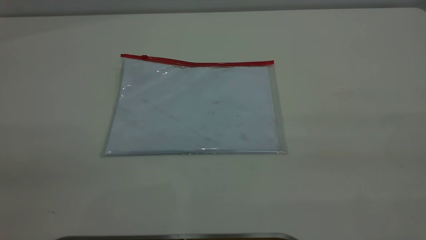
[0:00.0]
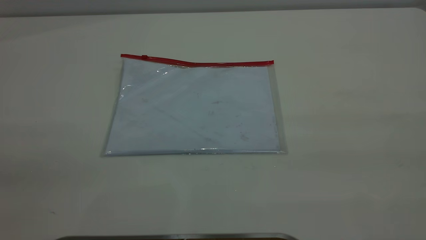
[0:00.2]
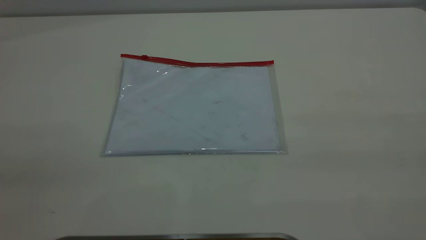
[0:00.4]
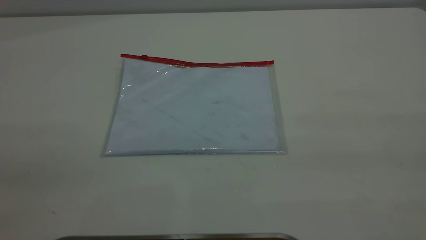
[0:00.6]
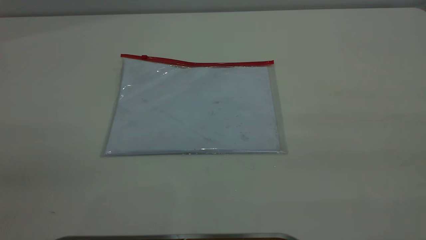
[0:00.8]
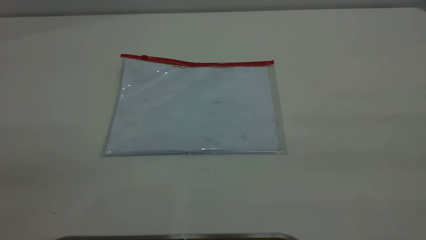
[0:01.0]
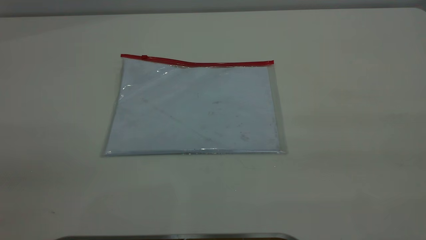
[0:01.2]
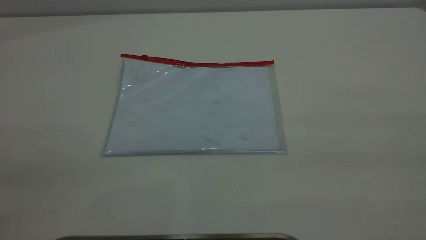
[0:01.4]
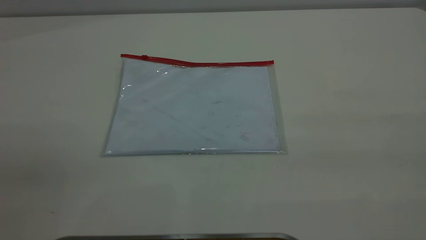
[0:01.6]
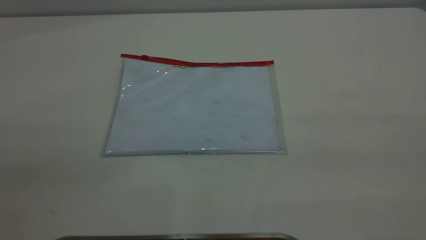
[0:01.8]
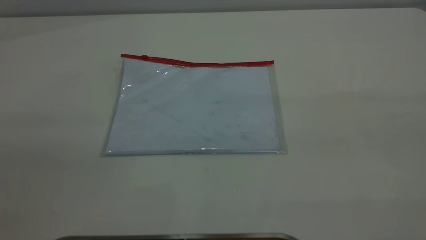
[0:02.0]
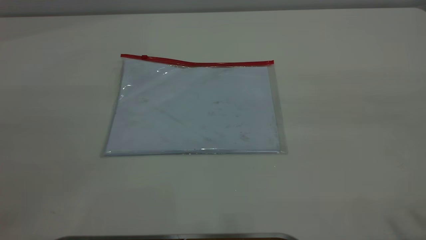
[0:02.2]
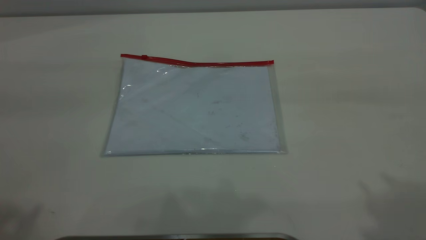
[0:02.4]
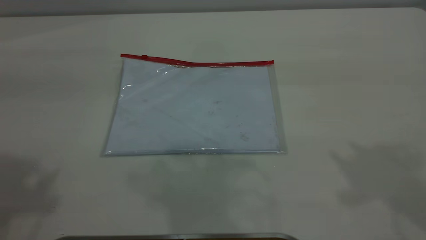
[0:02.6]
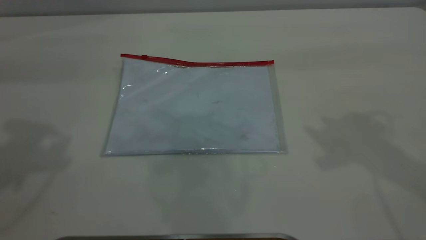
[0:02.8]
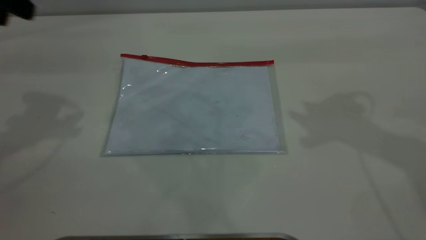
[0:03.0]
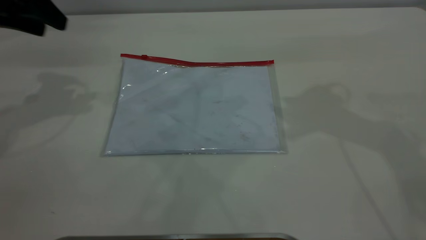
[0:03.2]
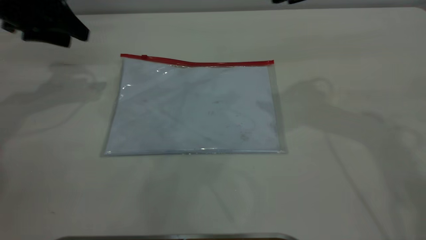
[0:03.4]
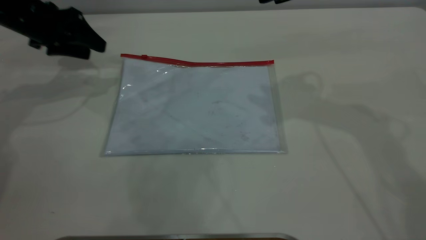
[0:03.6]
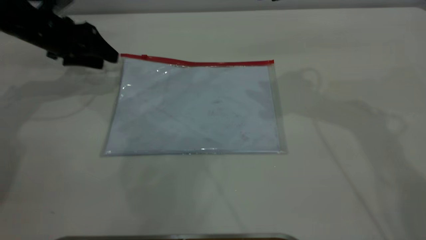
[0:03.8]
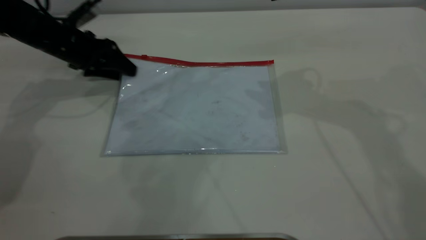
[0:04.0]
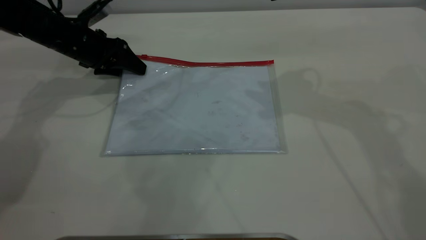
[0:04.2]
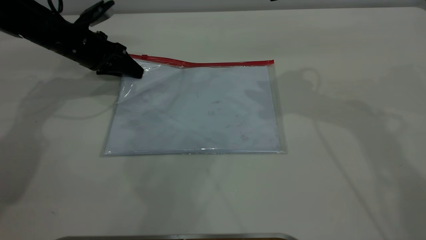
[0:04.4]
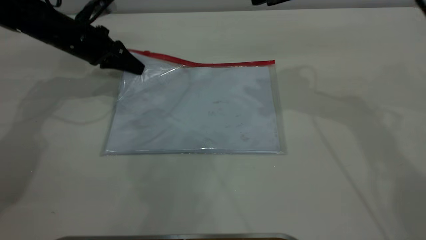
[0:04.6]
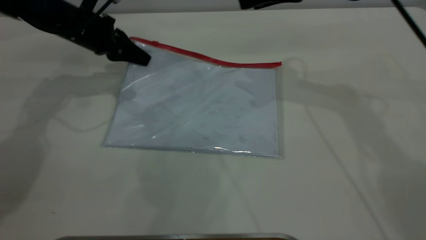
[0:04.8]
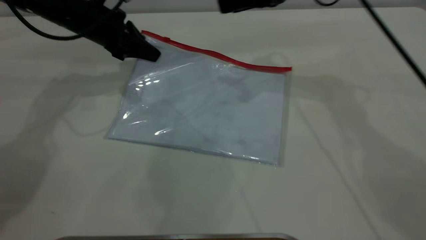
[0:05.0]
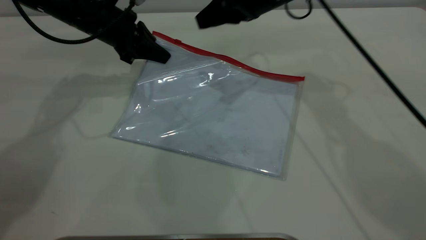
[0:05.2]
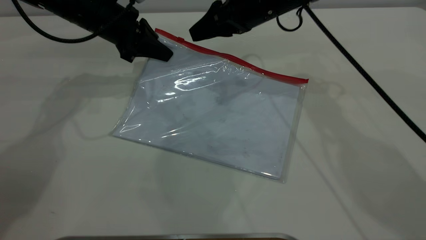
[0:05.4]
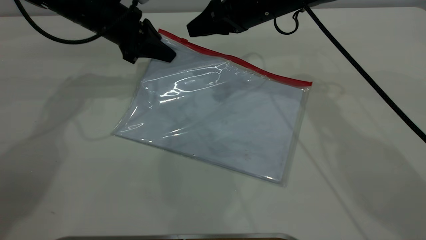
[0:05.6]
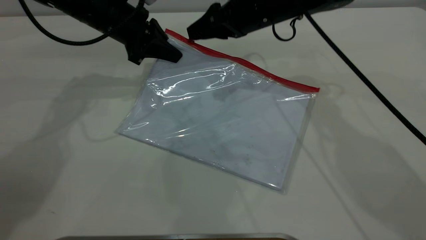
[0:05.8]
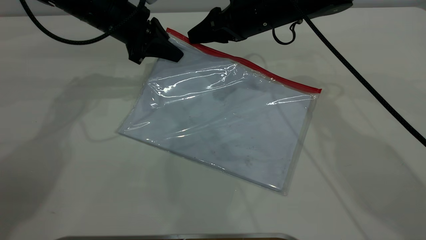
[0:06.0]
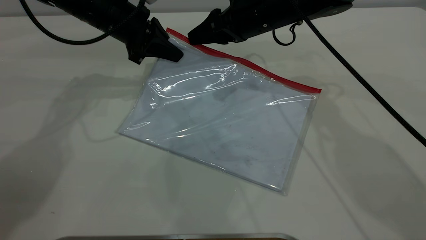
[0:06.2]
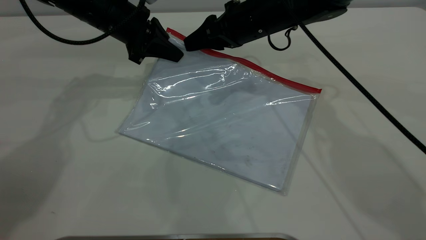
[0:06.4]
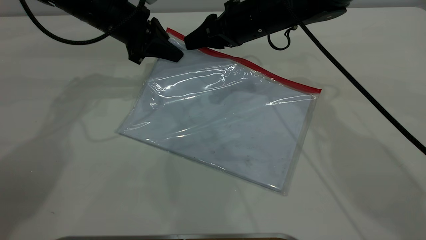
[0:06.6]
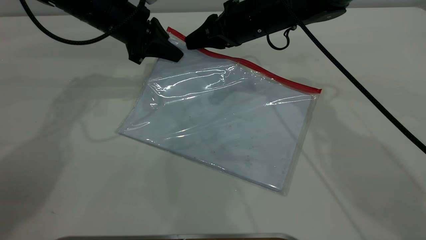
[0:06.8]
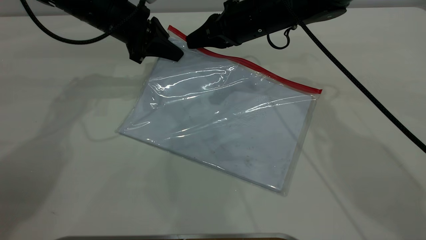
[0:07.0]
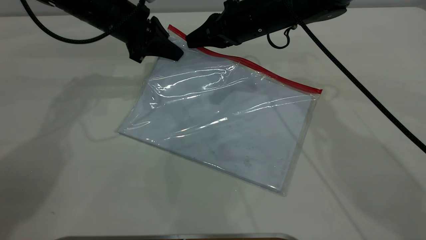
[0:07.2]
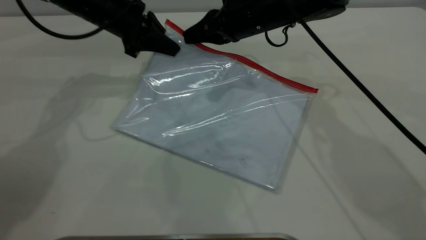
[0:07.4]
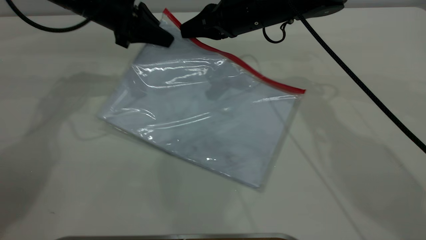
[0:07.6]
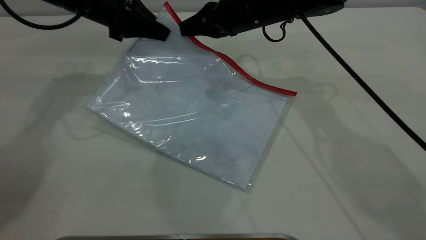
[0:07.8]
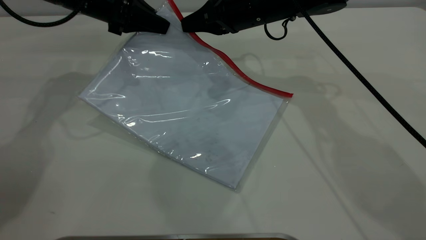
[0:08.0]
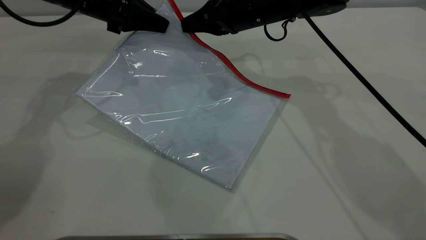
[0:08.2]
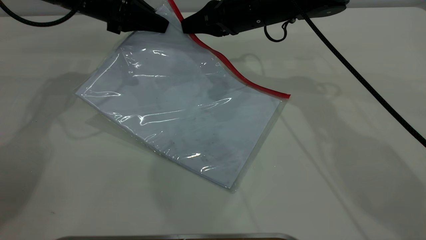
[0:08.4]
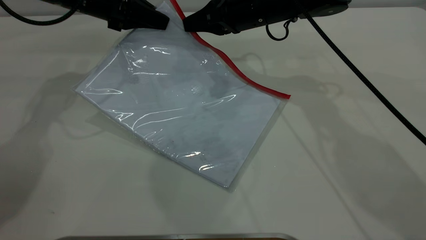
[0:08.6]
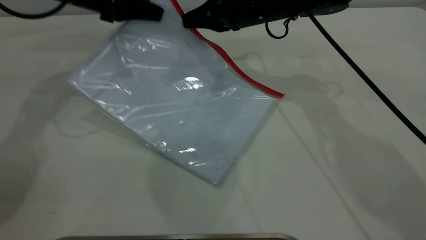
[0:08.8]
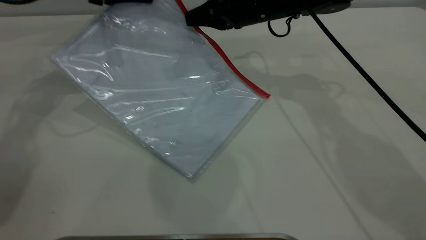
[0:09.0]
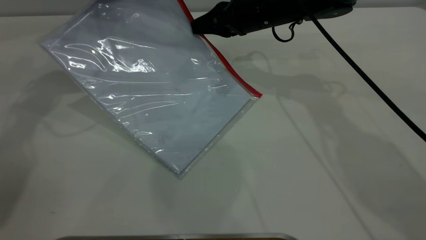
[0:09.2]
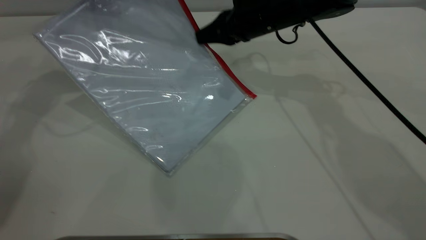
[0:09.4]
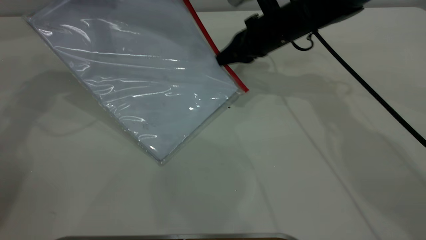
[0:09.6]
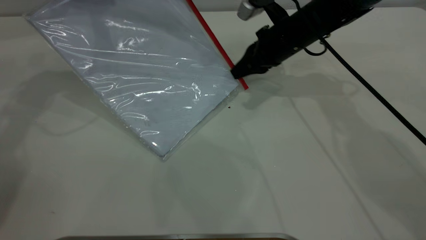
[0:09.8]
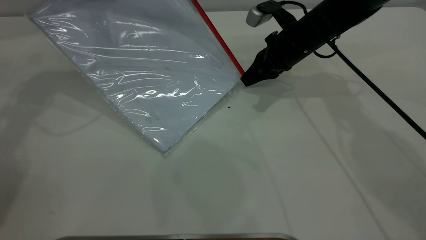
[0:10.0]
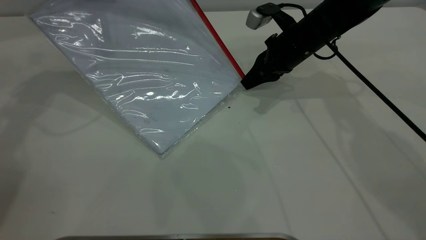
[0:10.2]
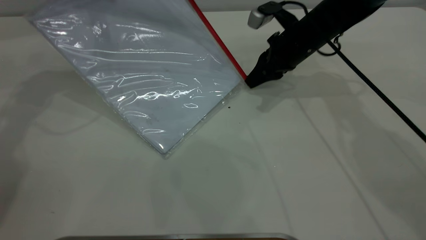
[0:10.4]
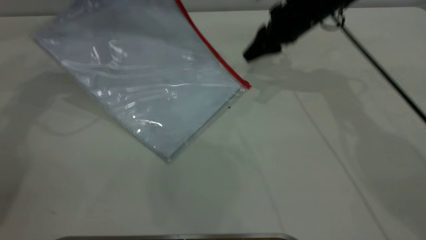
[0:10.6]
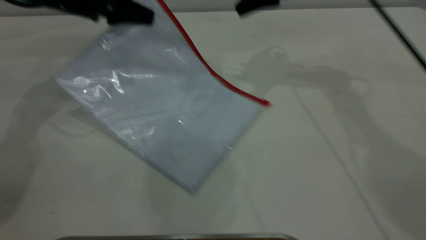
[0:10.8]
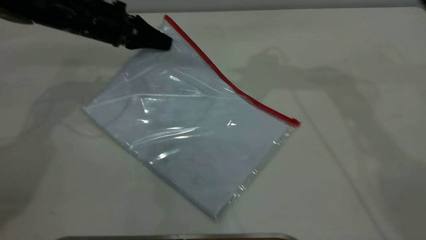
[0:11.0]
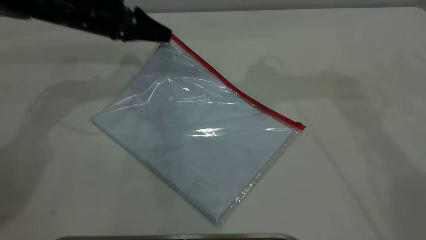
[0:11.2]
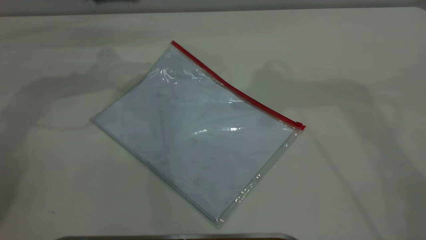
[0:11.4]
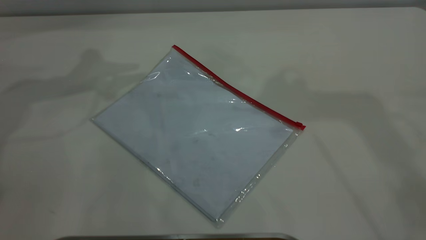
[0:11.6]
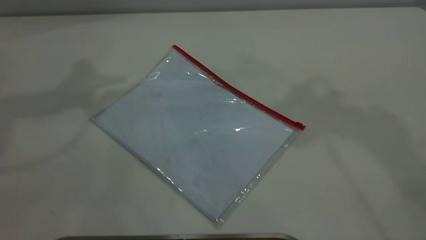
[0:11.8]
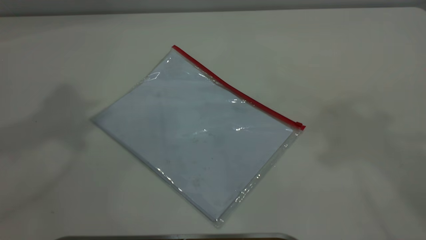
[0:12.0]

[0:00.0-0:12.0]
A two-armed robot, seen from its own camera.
Step, 0:00.0 to 0:04.8: Pick up the transparent plastic bag with the left gripper.
Step, 0:05.0 to 0:10.6: Pulling up the zipper on the transparent plastic bag with the right gripper to close it.
Step, 0:10.8 to 0:11.2: Place the transparent plastic bag.
0:01.6 to 0:03.0: The left gripper travels forward by about 35 cm.
0:03.0 to 0:04.4: The left gripper travels downward and forward by approximately 25 cm, and closes its fingers.
0:04.4 to 0:06.0: The left gripper travels to the right and upward by about 10 cm; the right gripper heads downward, to the left and forward, covering about 15 cm.
0:06.0 to 0:07.6: The right gripper closes up.
0:07.6 to 0:09.0: The left gripper goes some 5 cm upward.
0:09.0 to 0:10.4: The right gripper heads to the right, covering approximately 5 cm, and opens its fingers.
0:10.4 to 0:12.0: The left gripper is displaced upward and backward by approximately 30 cm, and opens up; the right gripper goes about 50 cm upward and backward, and opens its fingers.

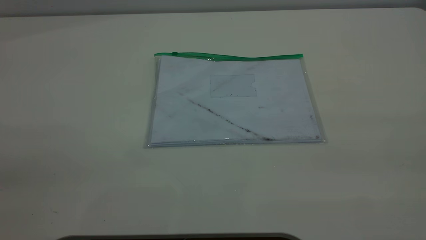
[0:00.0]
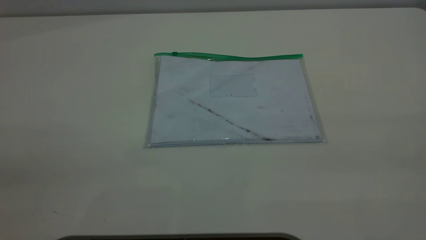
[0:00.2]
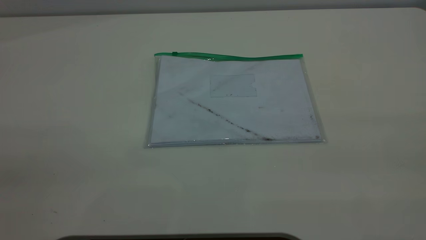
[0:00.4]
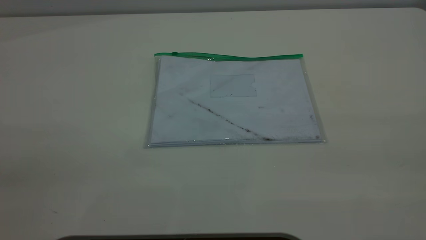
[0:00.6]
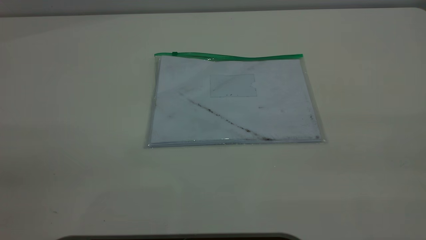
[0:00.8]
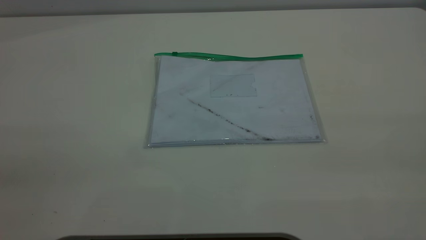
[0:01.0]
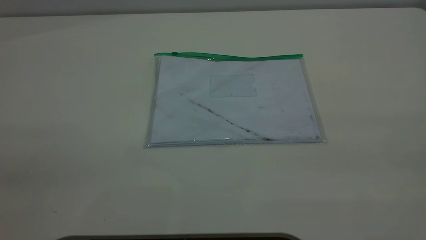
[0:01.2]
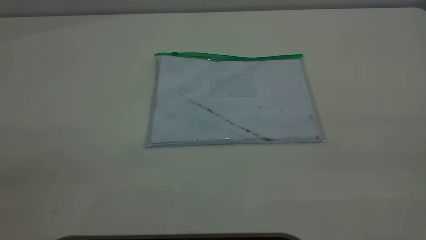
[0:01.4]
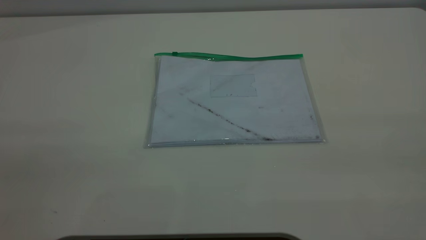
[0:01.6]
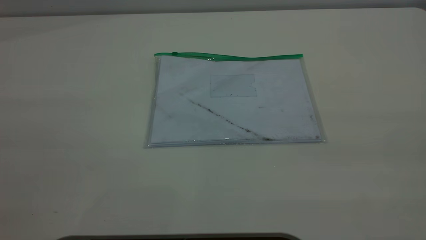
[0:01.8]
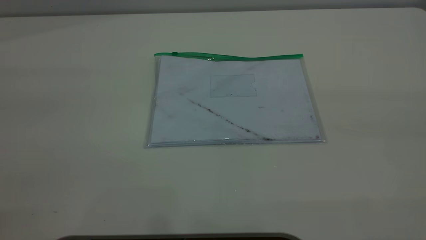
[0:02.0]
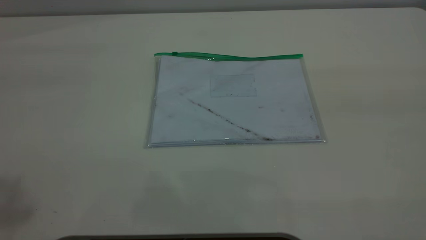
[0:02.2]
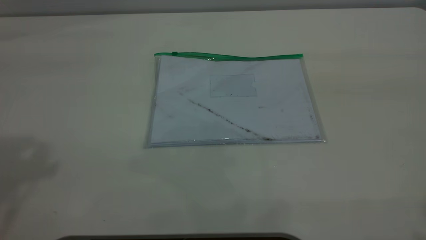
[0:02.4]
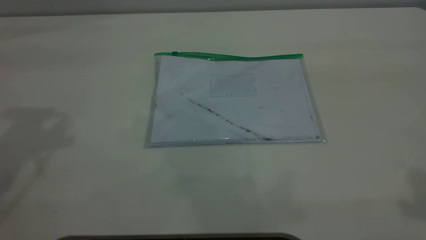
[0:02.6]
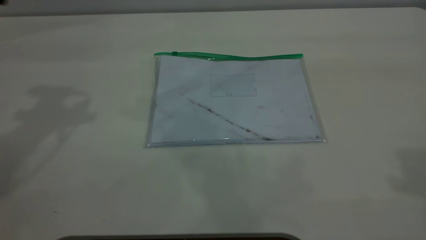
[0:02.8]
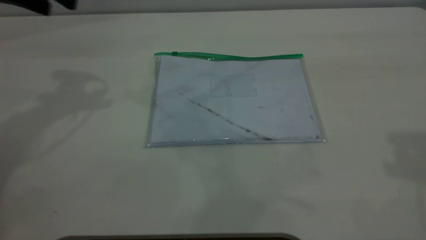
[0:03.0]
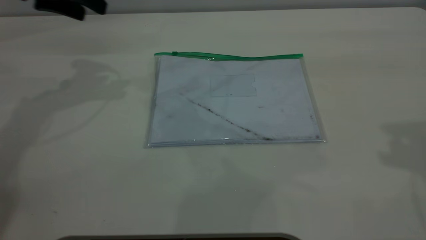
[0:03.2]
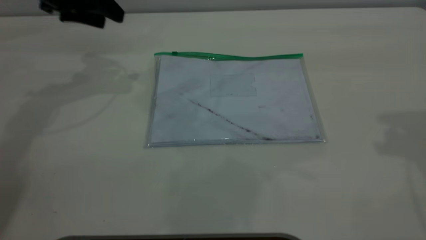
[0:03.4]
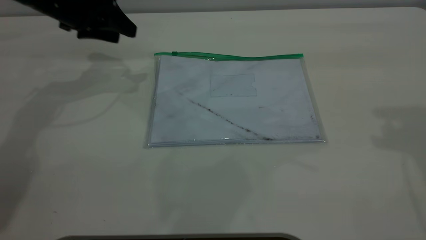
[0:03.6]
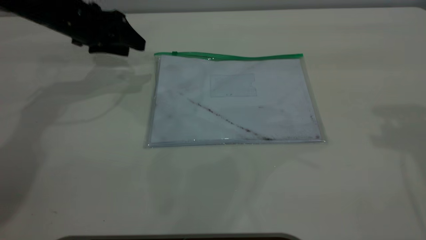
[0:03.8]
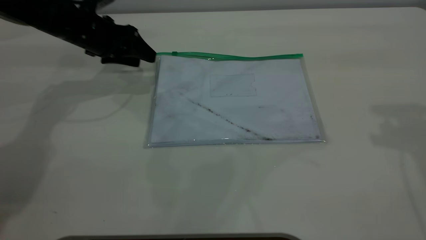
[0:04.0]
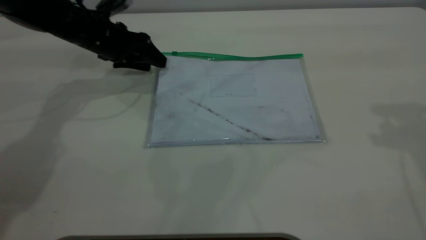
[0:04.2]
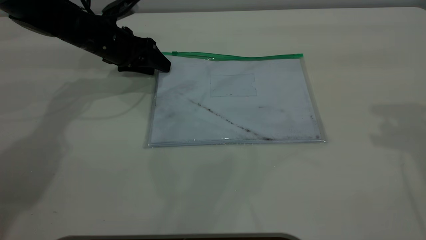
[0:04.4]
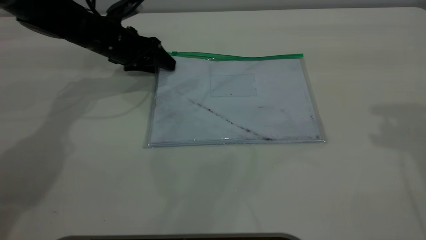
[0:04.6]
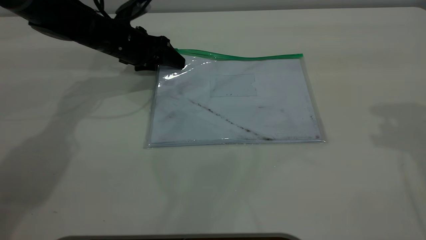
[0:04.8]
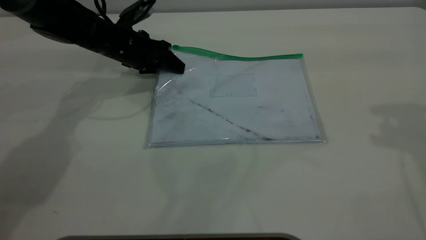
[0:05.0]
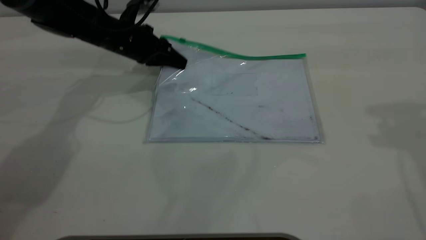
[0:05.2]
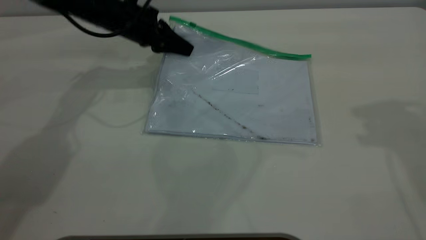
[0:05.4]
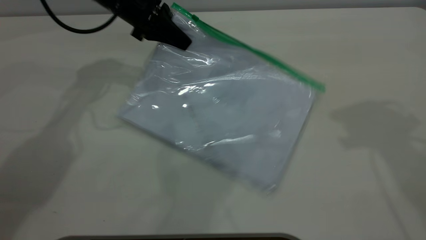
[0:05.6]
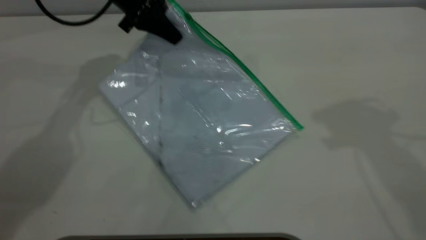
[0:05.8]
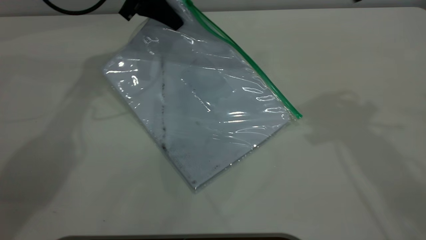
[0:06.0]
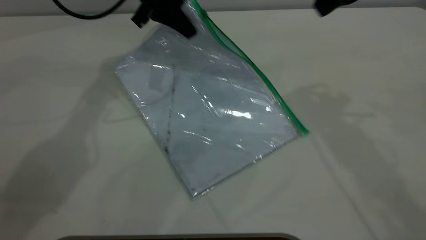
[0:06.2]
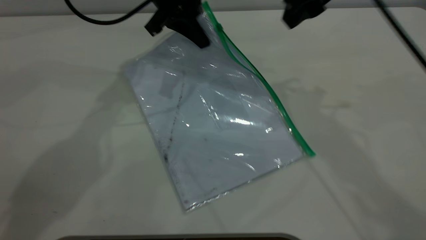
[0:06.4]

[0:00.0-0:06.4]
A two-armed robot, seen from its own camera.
Step, 0:00.0 to 0:05.2: Pick up the transparent plastic bag with the left gripper.
0:00.0 to 0:01.6: The two grippers keep their place.
0:01.6 to 0:03.2: The left gripper moves forward, approximately 40 cm.
0:03.2 to 0:04.8: The left gripper travels downward and to the right by roughly 20 cm.
0:04.8 to 0:06.4: The left gripper goes roughly 15 cm upward and to the right, and closes its fingers; the right gripper heads to the left and forward, covering some 20 cm.
